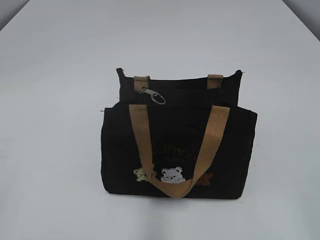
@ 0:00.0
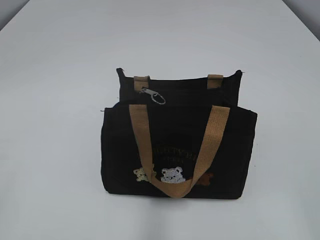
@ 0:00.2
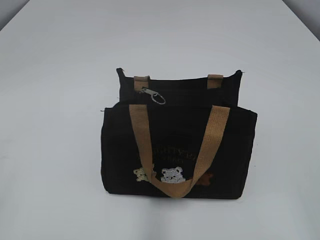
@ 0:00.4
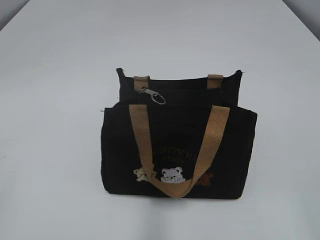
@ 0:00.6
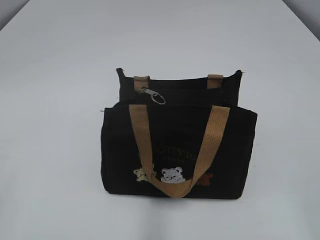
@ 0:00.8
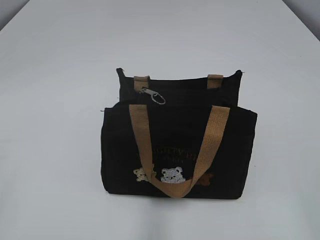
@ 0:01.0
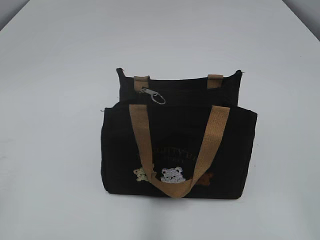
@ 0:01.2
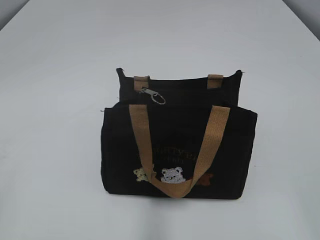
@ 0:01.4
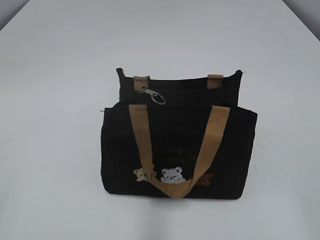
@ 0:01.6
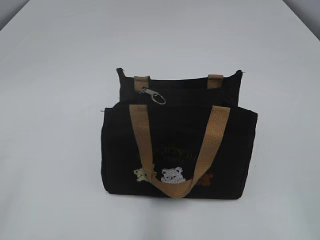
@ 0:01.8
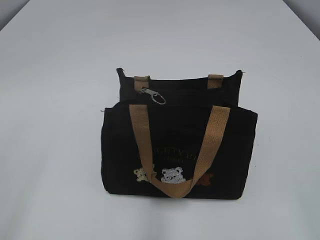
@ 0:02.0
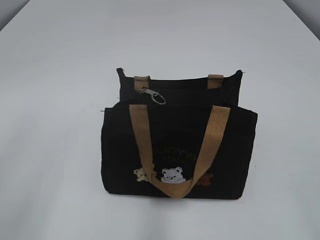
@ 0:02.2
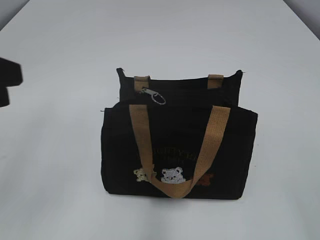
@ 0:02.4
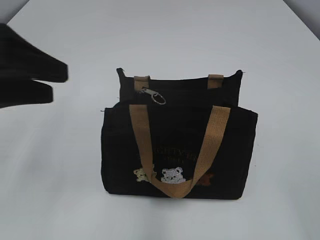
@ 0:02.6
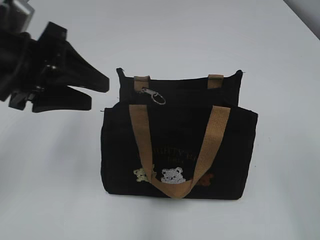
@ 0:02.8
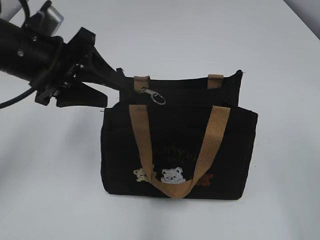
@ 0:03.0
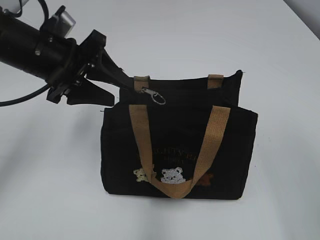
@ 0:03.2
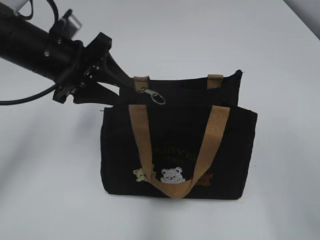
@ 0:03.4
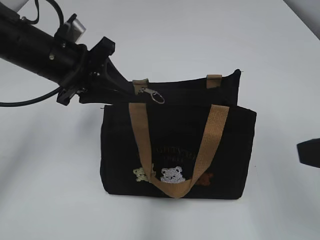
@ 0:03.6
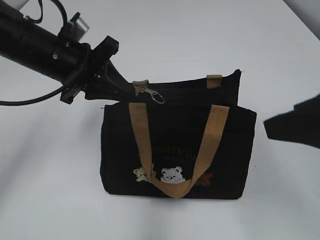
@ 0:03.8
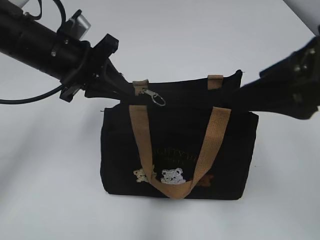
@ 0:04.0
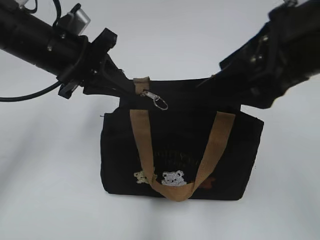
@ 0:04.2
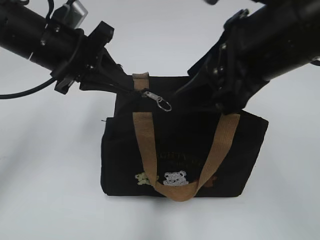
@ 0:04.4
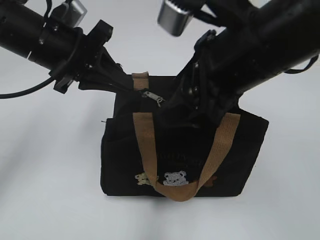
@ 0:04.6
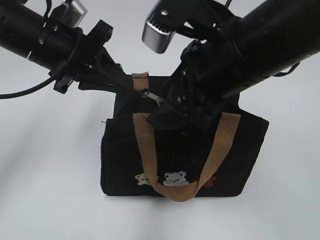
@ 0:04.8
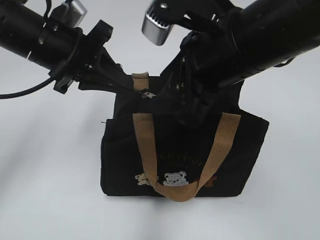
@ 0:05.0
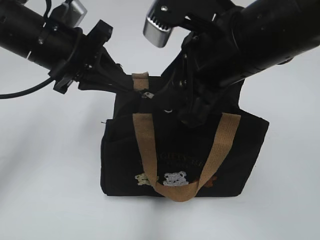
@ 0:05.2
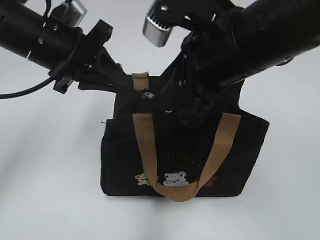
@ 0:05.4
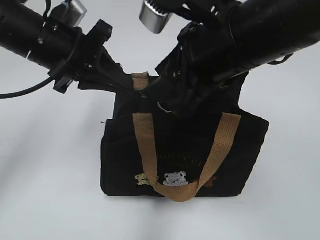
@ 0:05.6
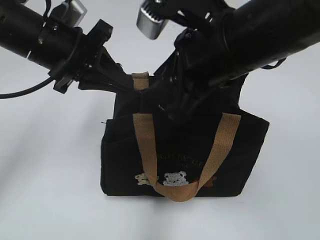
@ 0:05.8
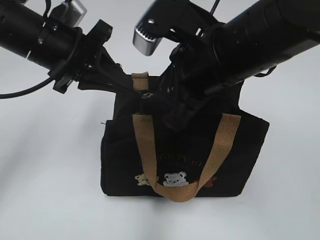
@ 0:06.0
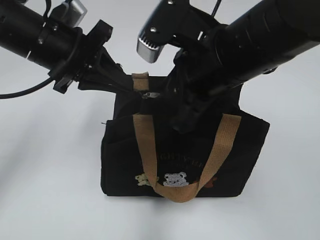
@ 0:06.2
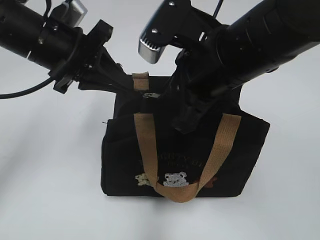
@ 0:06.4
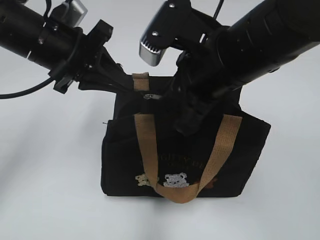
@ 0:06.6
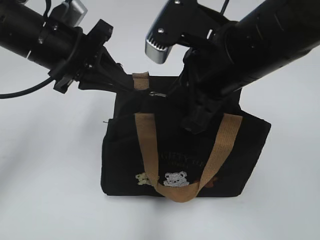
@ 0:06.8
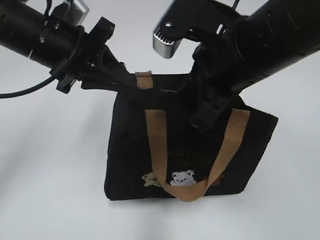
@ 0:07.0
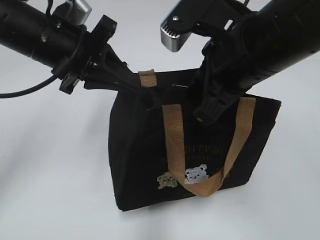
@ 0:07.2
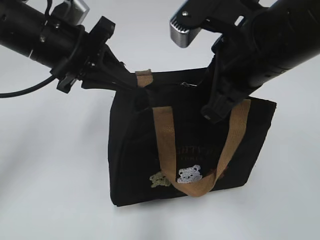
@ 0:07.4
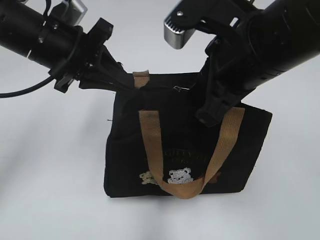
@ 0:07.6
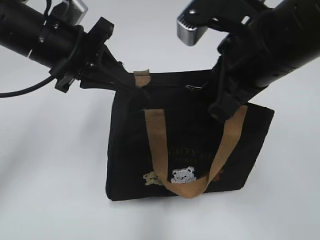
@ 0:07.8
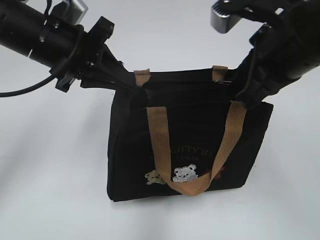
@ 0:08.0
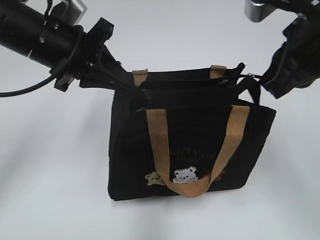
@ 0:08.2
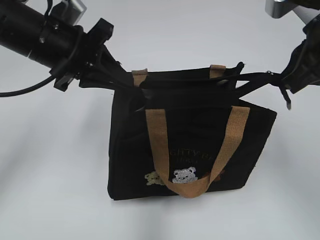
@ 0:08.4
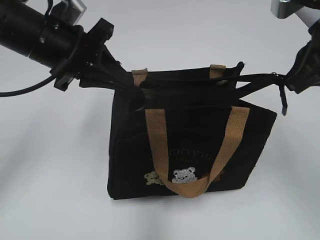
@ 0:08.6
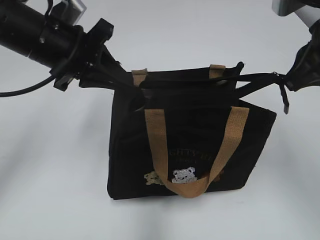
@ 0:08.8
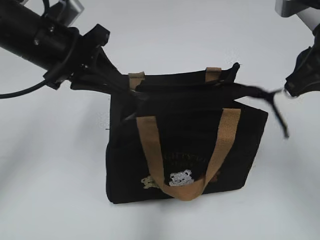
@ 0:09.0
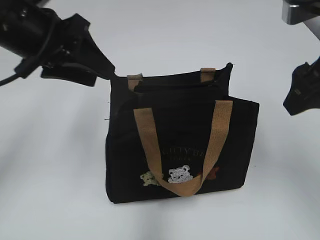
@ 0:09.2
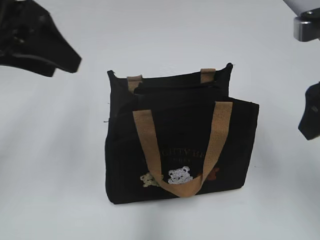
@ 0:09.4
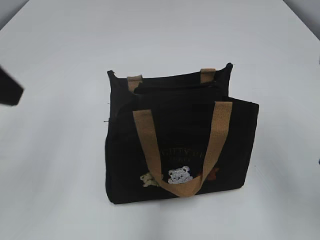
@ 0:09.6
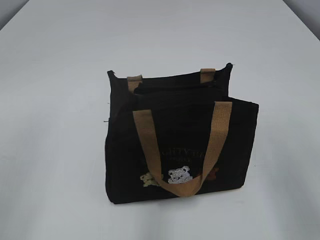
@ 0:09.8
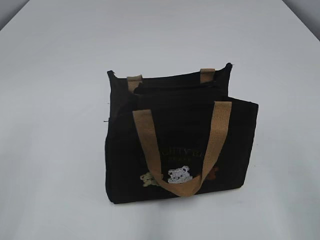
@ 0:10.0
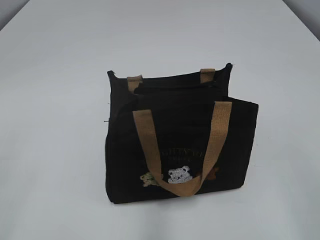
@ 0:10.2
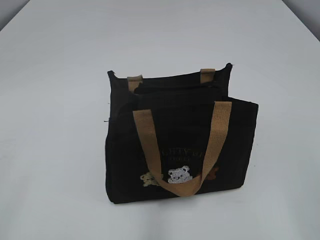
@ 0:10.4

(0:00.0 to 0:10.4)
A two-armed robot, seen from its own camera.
Step, 0:00.0 - 0:09.0: Pull open the zipper with your right hand.
0:01.4 - 0:03.0: The right gripper moves forward, roughly 5 cm; the left gripper shifts about 30 cm forward and to the right.
0:03.0 - 0:04.4: The right gripper goes roughly 20 cm forward and to the left, while the left gripper closes up.
0:04.4 - 0:06.0: The right gripper moves approximately 5 cm.
0:06.0 - 0:07.4: The right gripper closes its fingers.
0:07.4 - 0:09.0: The right gripper moves to the right, approximately 10 cm.
0:09.0 - 0:10.4: The right gripper travels backward by roughly 25 cm, and opens its fingers; the left gripper travels backward and to the left by some 35 cm, and opens its fingers.
